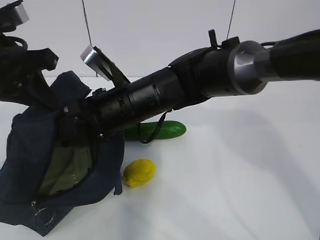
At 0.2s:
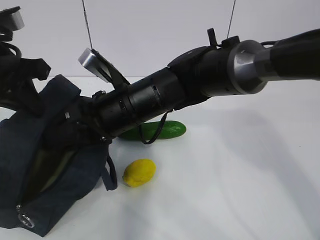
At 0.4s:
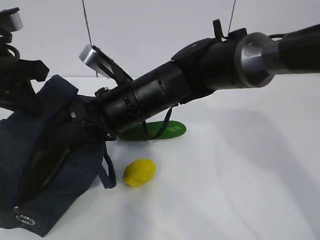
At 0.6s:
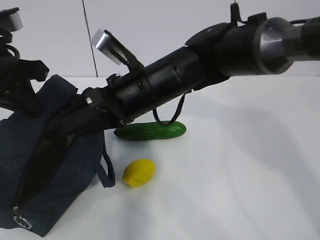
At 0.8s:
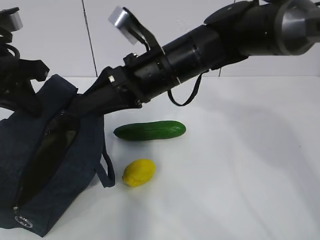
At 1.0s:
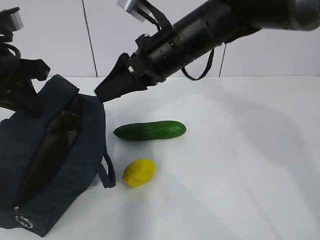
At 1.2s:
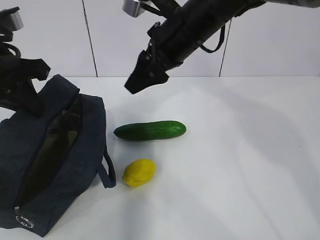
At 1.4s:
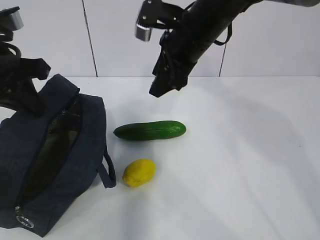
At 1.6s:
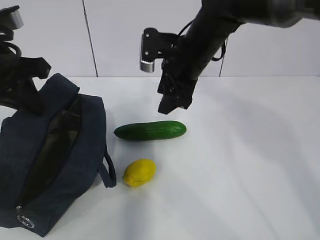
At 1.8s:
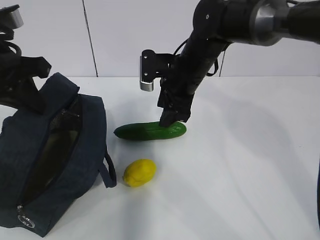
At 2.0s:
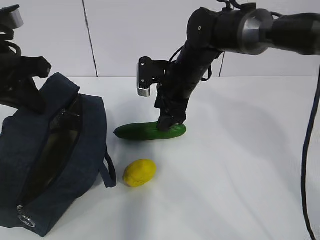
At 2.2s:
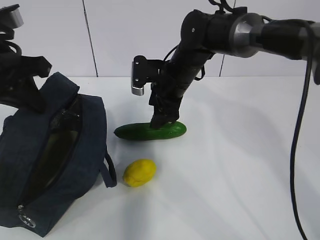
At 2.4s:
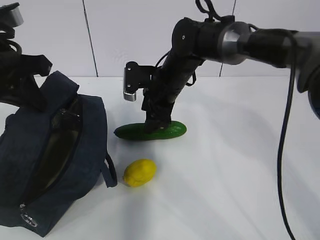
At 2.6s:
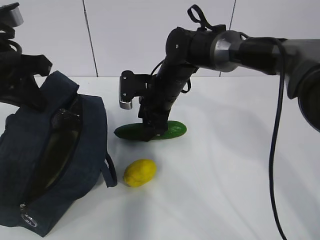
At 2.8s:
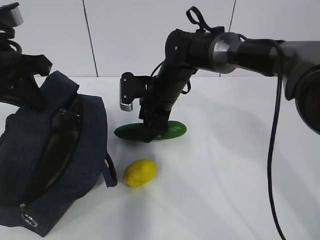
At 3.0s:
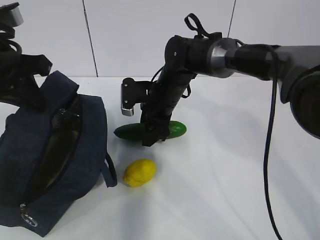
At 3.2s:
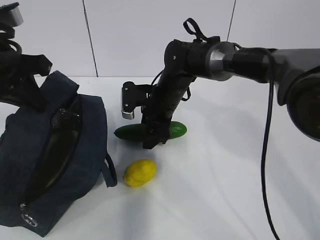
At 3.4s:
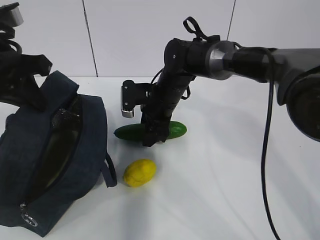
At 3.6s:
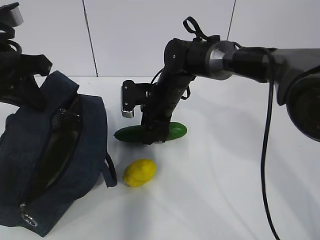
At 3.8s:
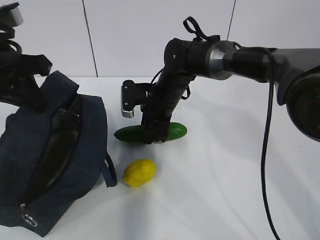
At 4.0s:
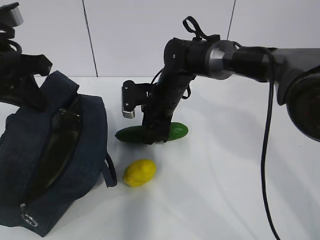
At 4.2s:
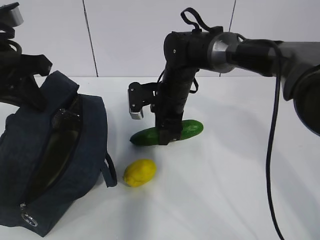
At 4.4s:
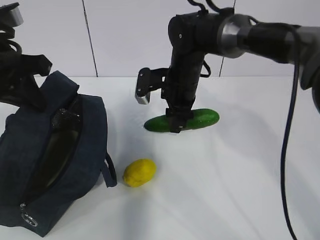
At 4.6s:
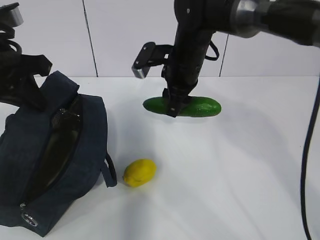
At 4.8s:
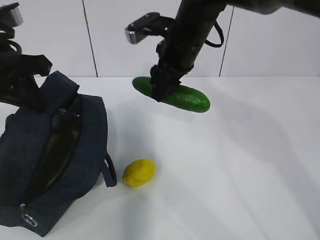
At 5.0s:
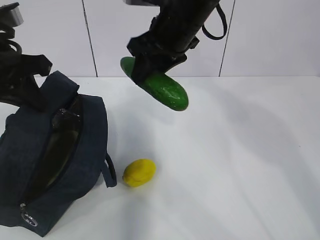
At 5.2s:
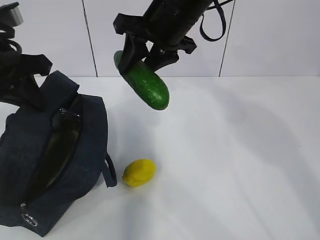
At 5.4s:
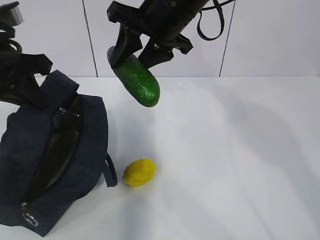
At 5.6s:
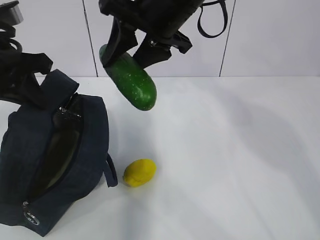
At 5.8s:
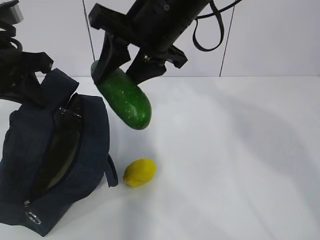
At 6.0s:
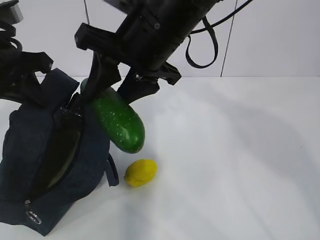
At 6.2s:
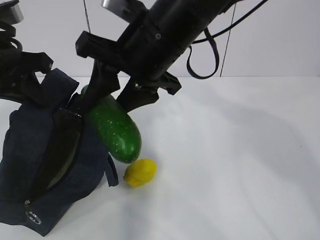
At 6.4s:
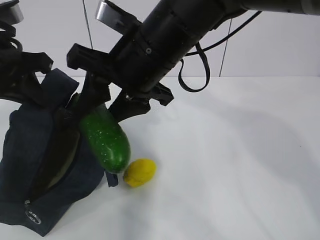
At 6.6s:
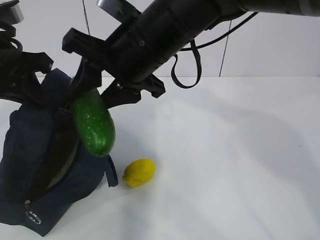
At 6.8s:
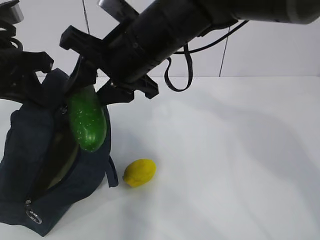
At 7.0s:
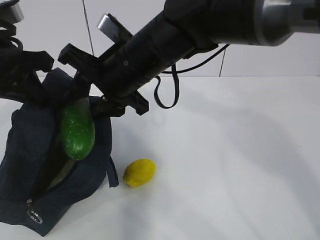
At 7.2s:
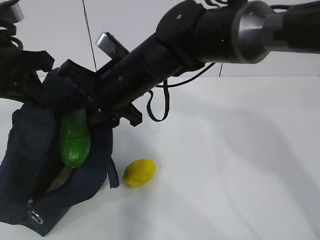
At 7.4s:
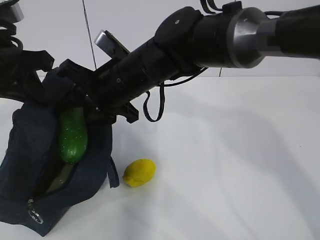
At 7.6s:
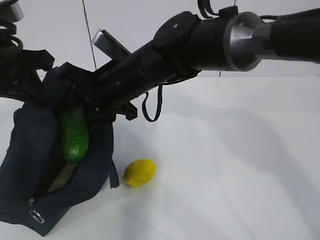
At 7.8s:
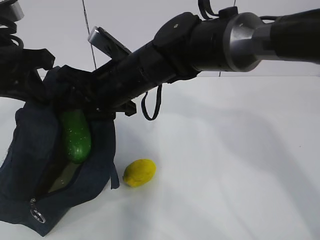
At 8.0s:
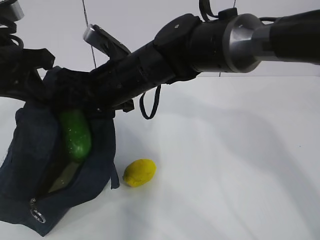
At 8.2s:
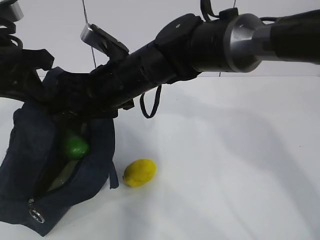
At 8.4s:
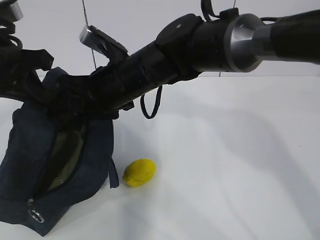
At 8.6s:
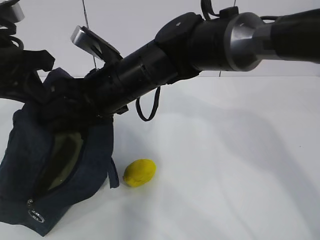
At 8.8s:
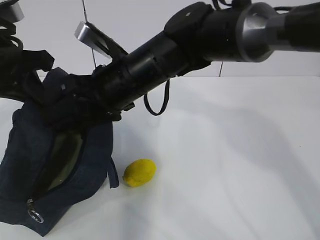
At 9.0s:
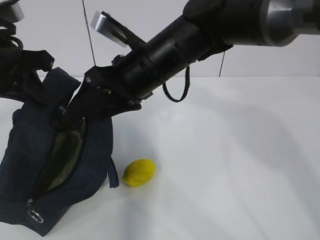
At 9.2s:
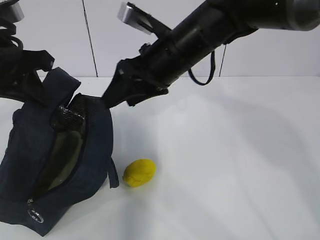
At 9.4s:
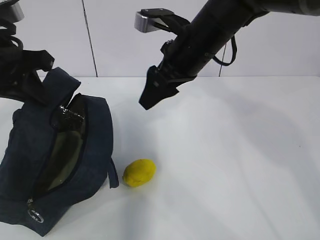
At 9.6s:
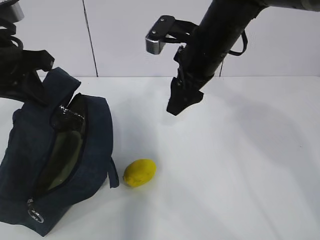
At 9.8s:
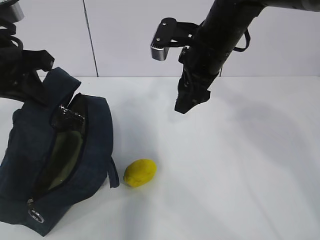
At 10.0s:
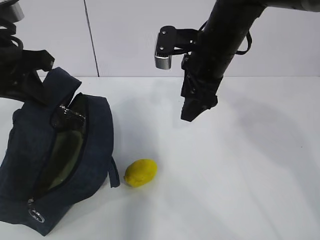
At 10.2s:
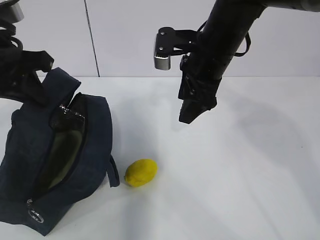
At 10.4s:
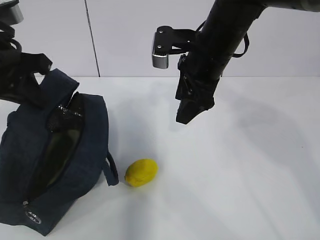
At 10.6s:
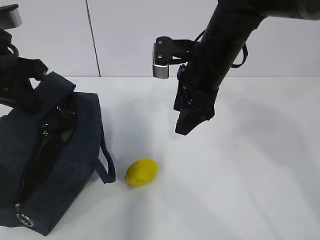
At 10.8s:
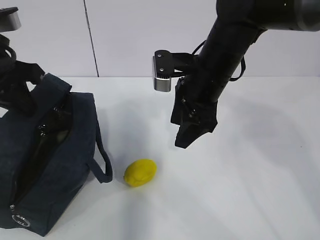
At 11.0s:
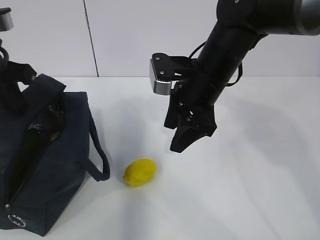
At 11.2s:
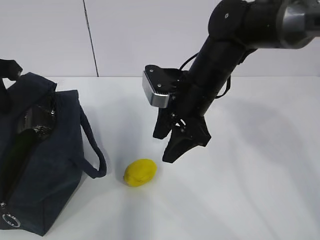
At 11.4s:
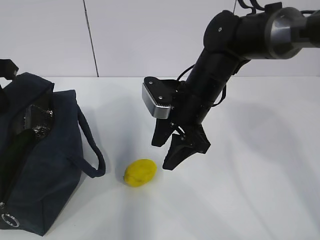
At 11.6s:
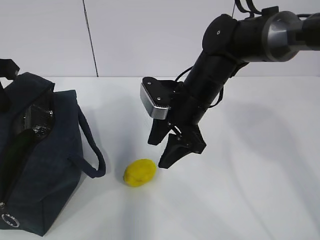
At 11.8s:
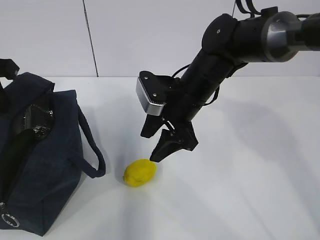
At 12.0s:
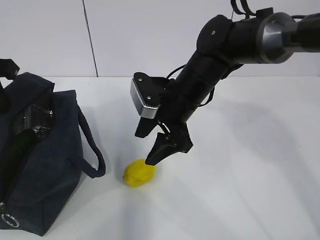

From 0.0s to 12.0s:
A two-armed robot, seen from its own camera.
Step, from 1.6s to 7.0s: Grab the lemon with your right hand.
From 0.0s to 1.6s: The right gripper heads to the right and forward, covering approximately 15 cm.
From 1.6s to 3.0s: The right gripper heads downward, covering some 10 cm.
From 3.0s to 4.4s: The grippers stay close to where they were, moving slightly.
From 4.4s to 6.0s: The right gripper goes about 20 cm upward and backward.
From 6.0s to 7.6s: The right gripper moves downward and to the left, some 10 cm.
From 9.0s to 10.4s: The right gripper moves to the right, about 10 cm.
From 10.4s to 12.0s: The right gripper goes about 10 cm downward.

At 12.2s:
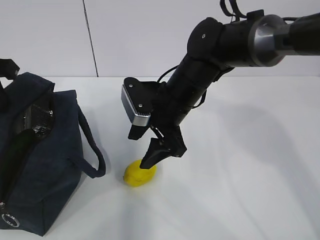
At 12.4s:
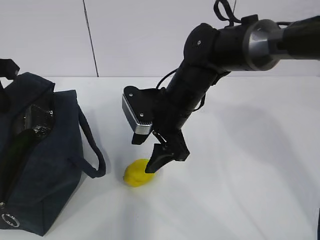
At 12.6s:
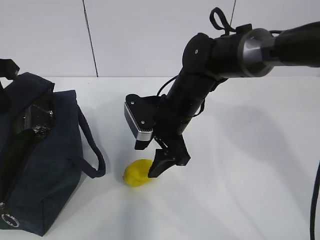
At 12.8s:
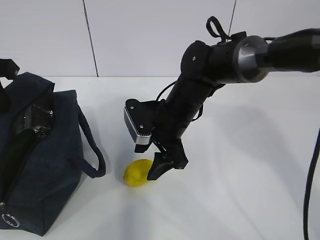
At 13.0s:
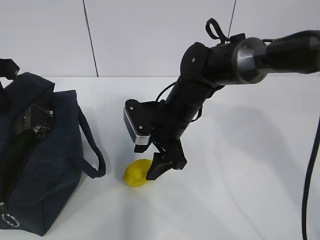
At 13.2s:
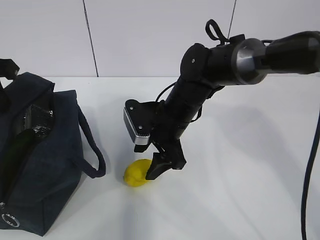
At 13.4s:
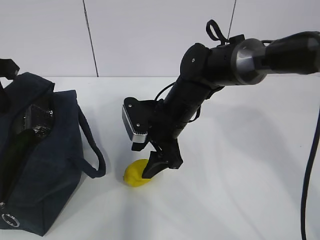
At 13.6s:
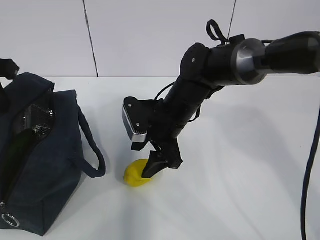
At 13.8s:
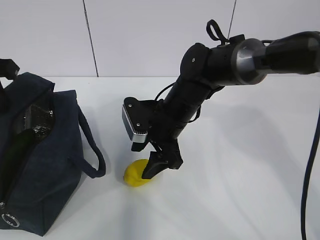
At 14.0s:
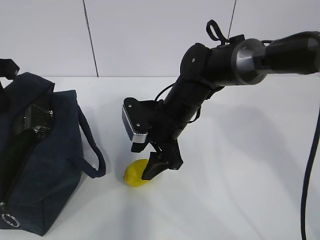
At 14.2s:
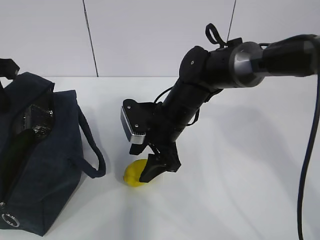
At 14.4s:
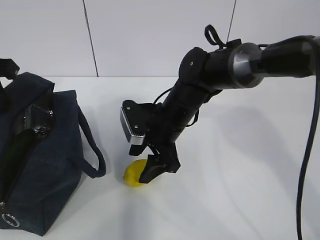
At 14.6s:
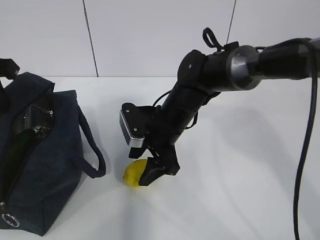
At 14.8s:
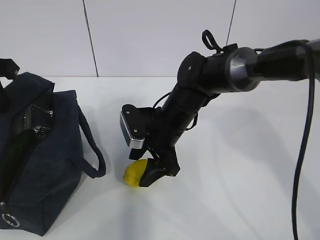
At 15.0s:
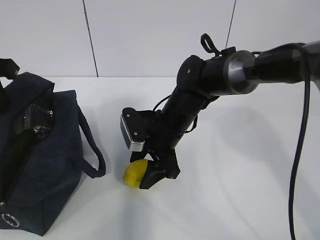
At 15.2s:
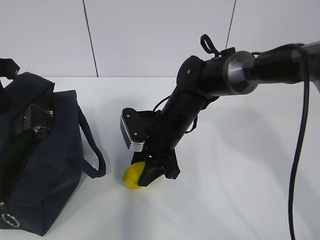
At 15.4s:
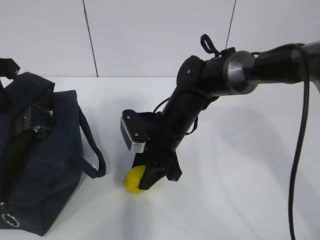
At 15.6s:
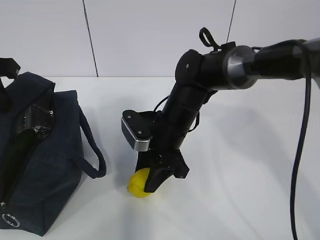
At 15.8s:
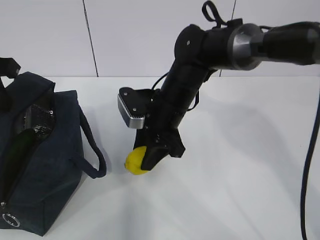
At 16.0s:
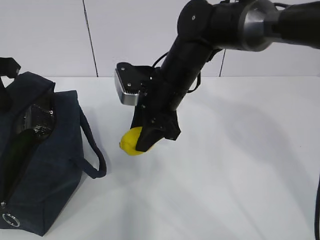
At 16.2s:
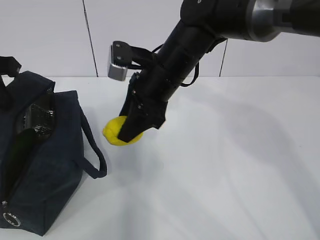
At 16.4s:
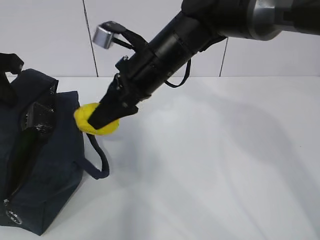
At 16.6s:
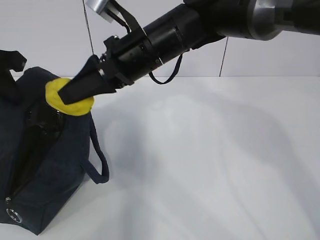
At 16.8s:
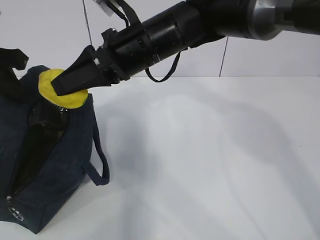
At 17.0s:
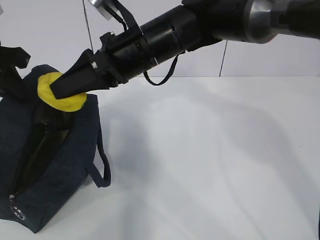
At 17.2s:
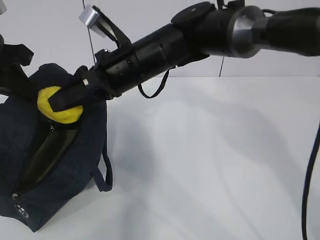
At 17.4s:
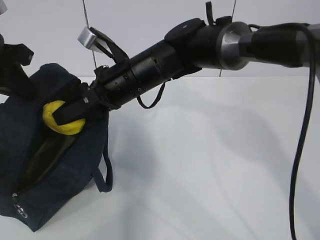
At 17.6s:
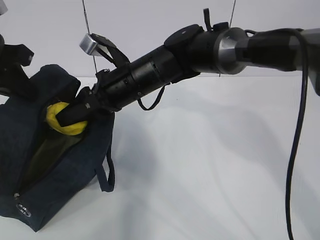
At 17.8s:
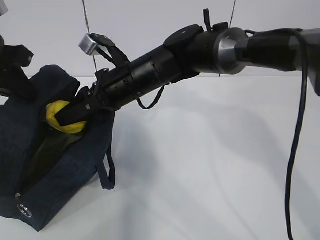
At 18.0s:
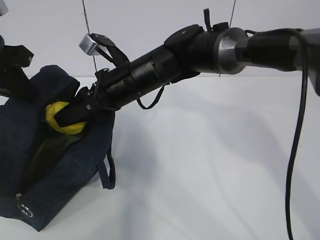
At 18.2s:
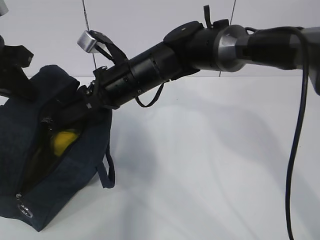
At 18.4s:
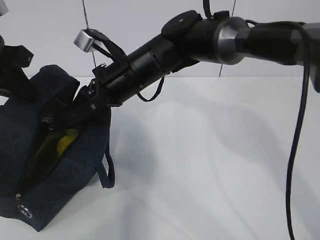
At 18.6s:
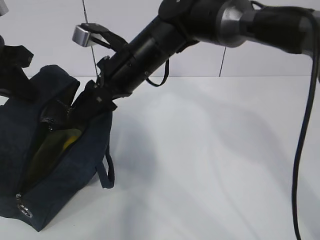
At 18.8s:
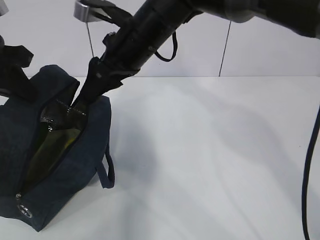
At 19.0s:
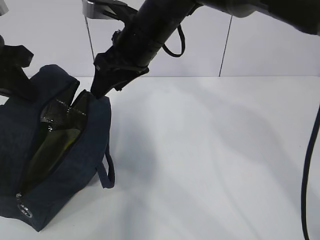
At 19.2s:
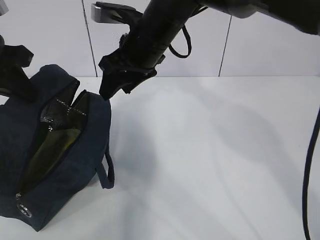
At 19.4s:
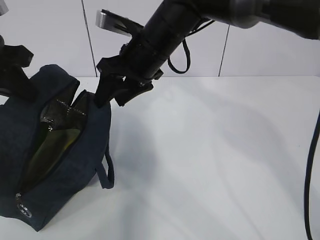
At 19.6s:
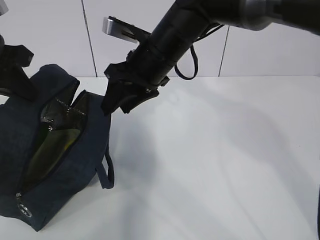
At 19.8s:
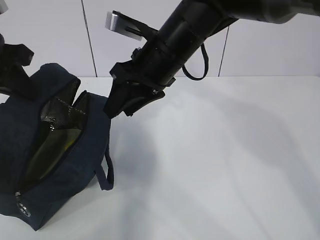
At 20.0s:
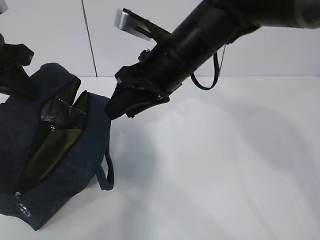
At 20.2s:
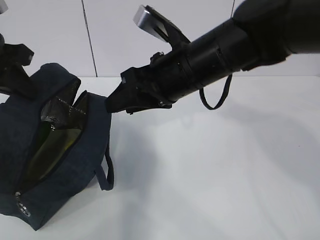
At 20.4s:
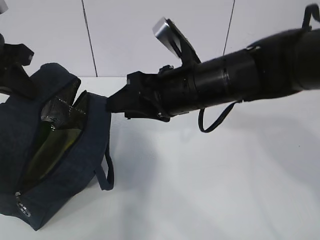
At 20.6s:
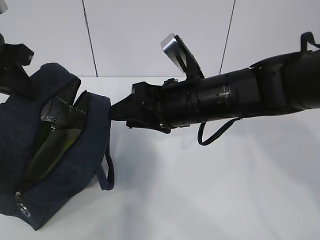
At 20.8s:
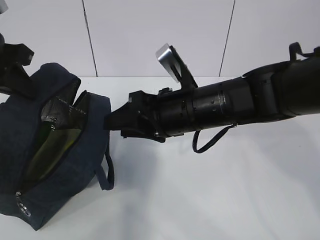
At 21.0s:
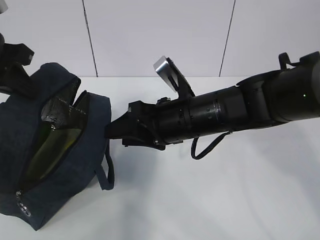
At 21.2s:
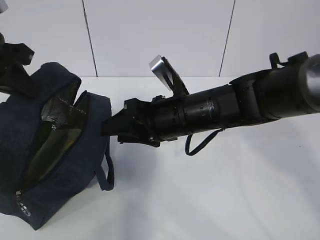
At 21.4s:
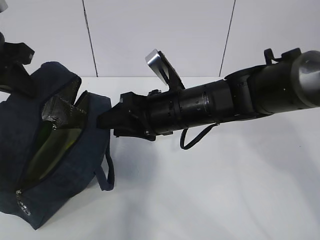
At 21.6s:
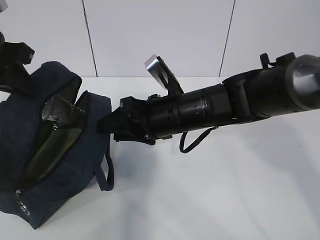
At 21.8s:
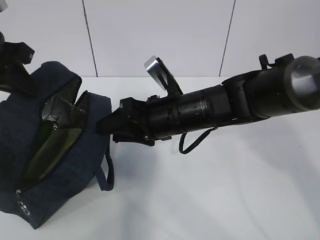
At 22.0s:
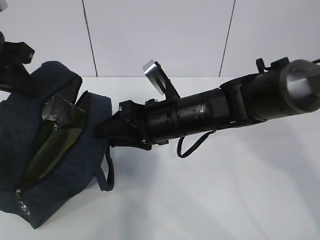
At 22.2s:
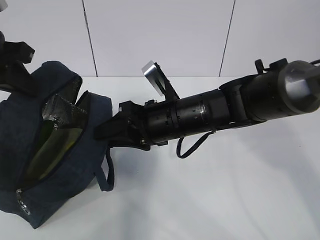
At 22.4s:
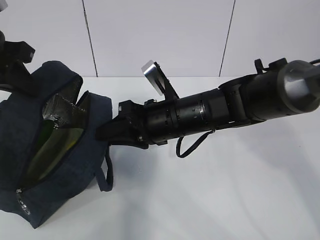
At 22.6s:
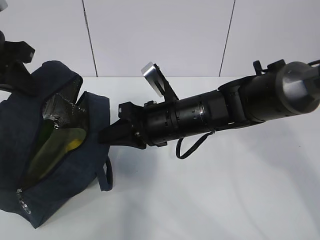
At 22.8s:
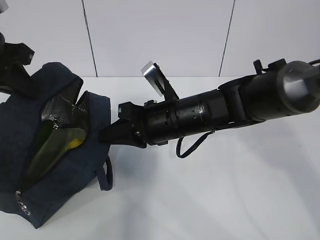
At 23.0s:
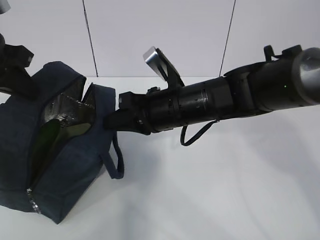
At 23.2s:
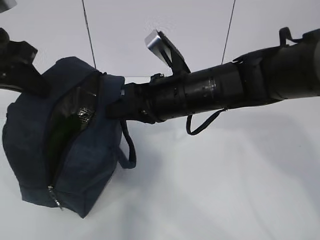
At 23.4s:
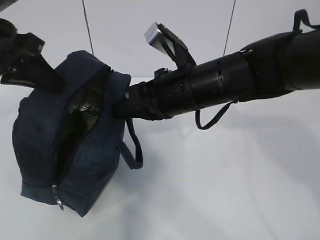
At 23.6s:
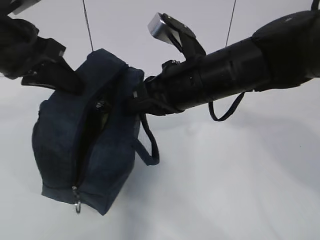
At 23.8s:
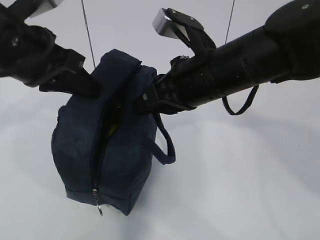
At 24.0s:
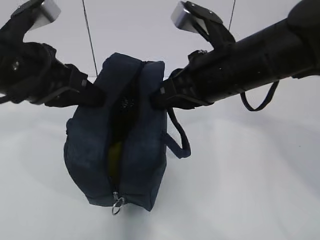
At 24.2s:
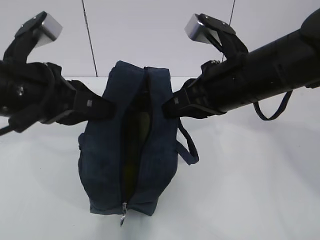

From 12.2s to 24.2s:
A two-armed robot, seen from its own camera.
Step, from 13.4s to 16.2s: Move the lunch bag to the right.
From 12.2s to 13.8s: The grippers stay close to where they were, moving slightly.
From 13.8s to 15.2s: The grippers stay close to where they were, moving slightly.
From 15.2s to 16.6s: The right gripper goes about 15 cm upward.
From 16.6s to 18.2s: The right gripper moves downward, roughly 5 cm.
From 18.2s to 19.8s: The right gripper travels upward and to the right by some 10 cm.
From 19.8s to 21.2s: The right gripper travels downward and backward by roughly 10 cm.
From 21.2s to 22.6s: The right gripper closes its fingers.
From 22.6s to 24.2s: The left gripper travels to the right and backward by about 10 cm. Meanwhile the right gripper heads upward and to the right, covering some 10 cm.
